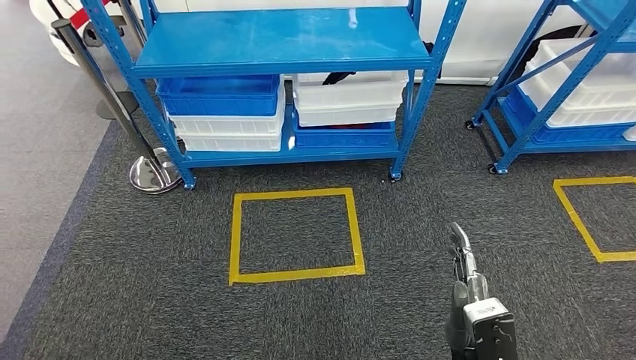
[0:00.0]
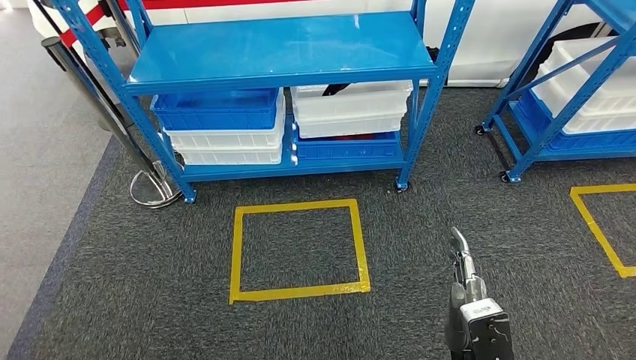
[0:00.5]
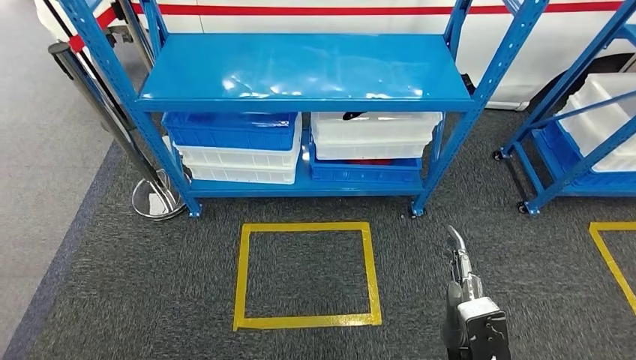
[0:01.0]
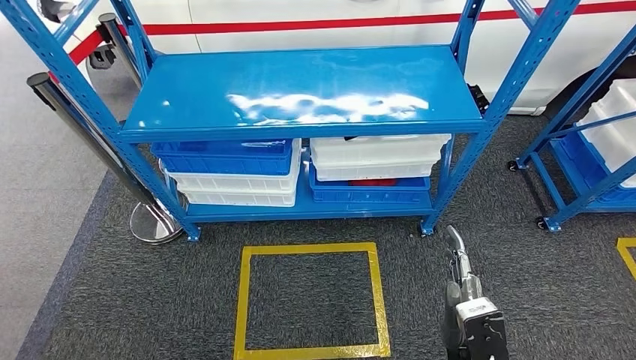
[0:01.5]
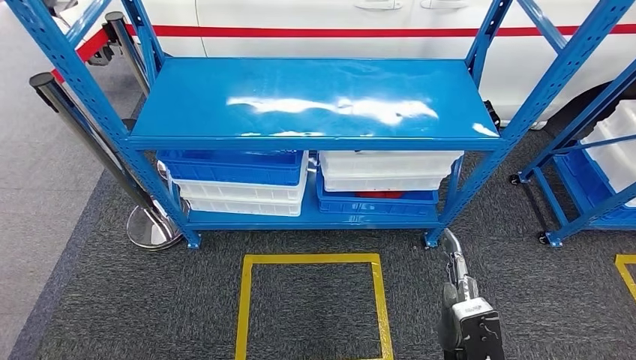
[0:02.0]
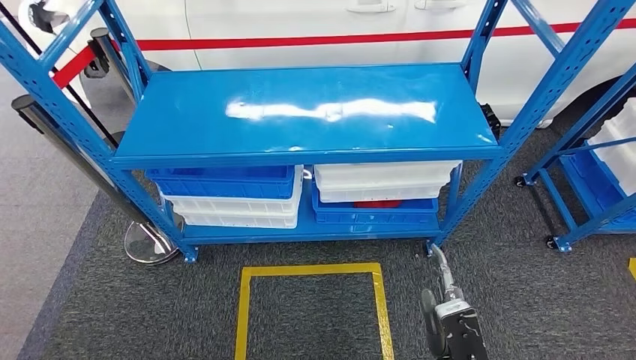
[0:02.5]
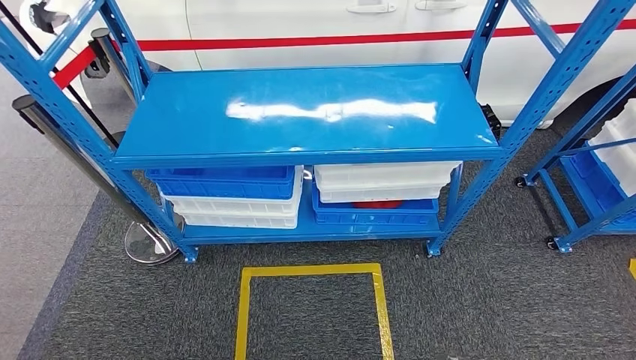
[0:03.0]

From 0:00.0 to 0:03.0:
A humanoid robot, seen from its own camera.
Step, from 0:00.0 to 0:03.0: Move to the initial position of the shelf.
